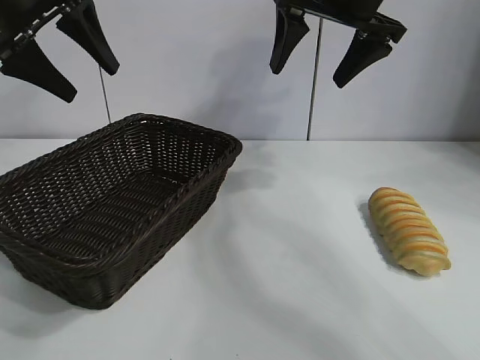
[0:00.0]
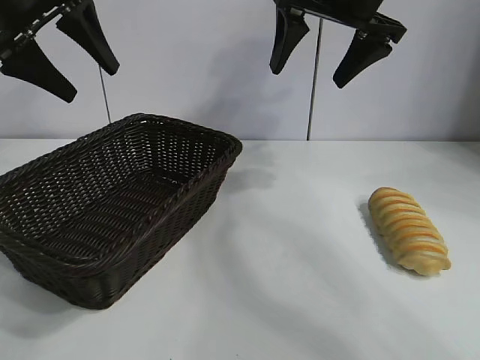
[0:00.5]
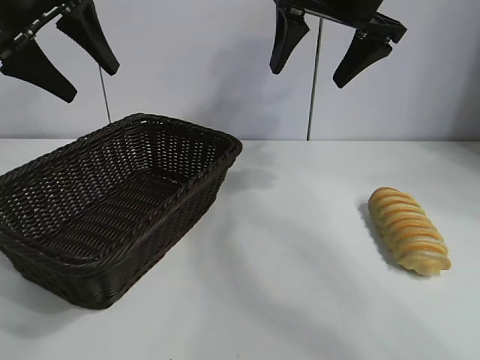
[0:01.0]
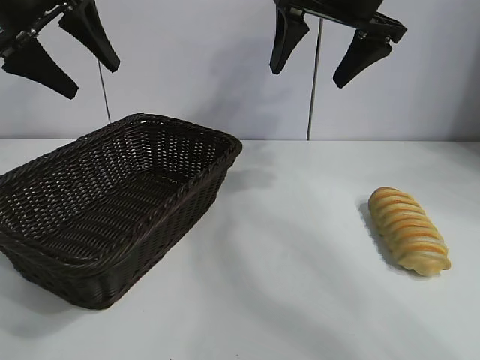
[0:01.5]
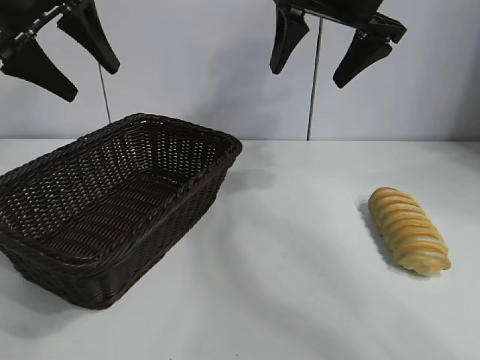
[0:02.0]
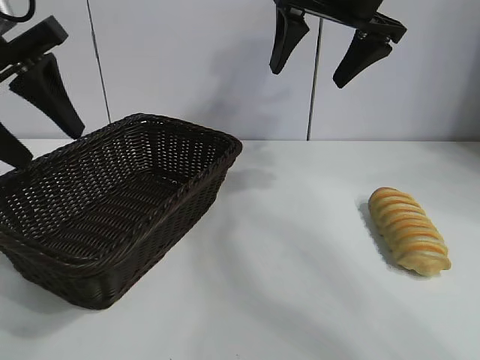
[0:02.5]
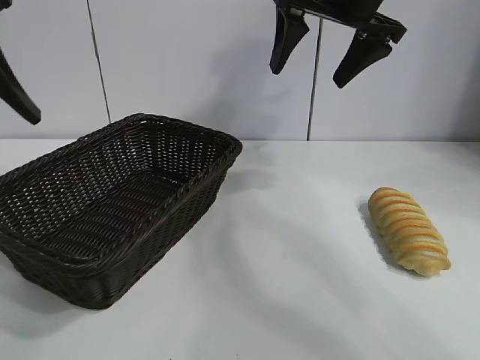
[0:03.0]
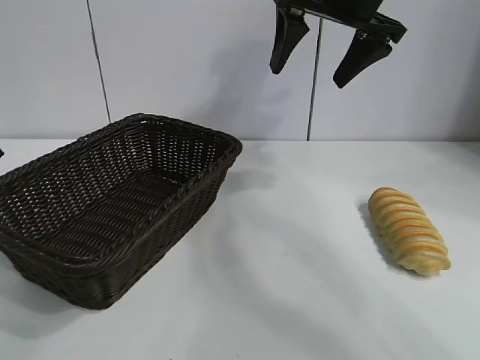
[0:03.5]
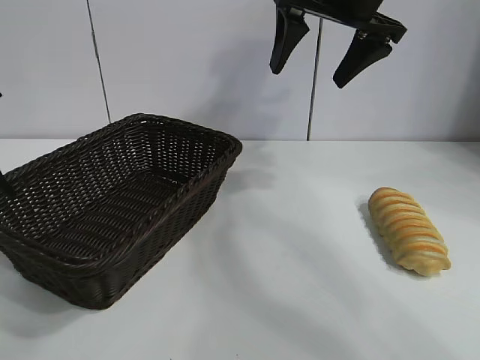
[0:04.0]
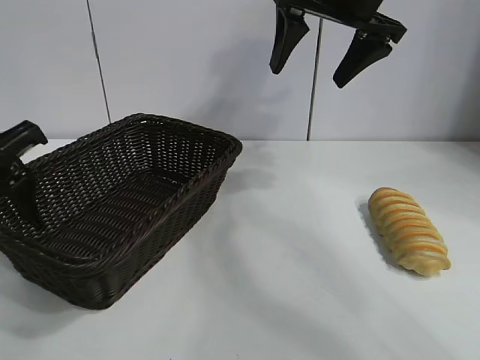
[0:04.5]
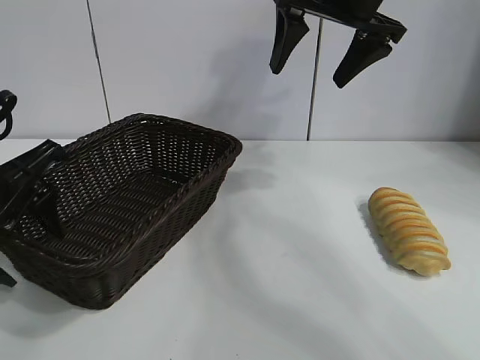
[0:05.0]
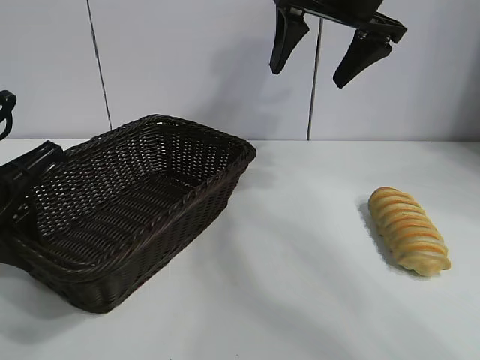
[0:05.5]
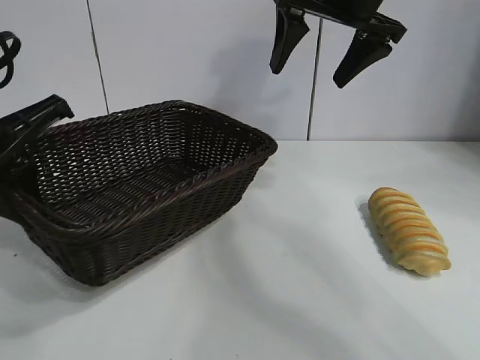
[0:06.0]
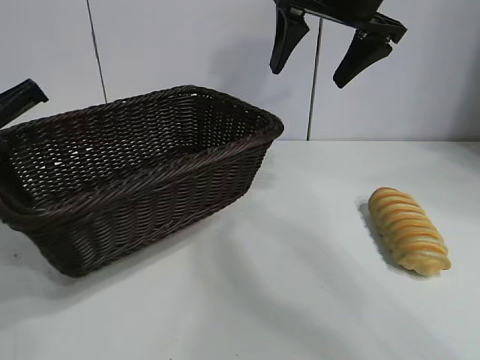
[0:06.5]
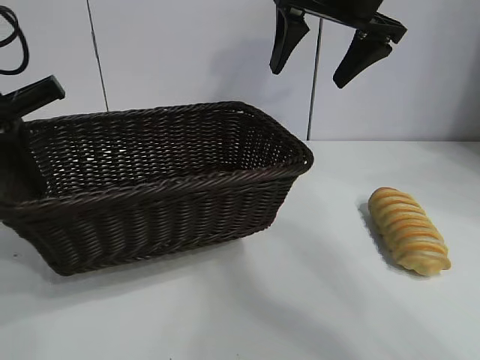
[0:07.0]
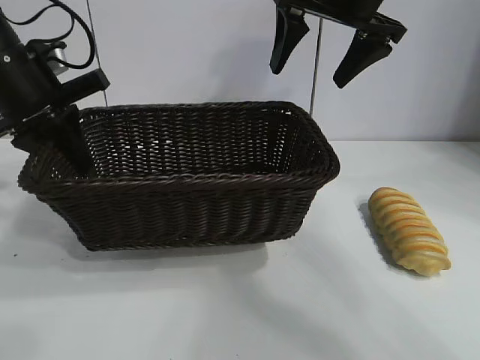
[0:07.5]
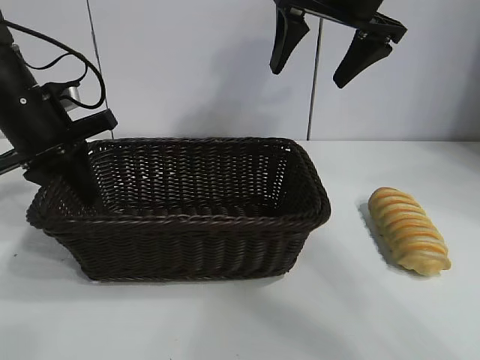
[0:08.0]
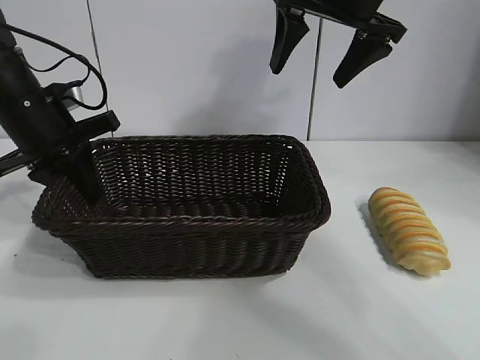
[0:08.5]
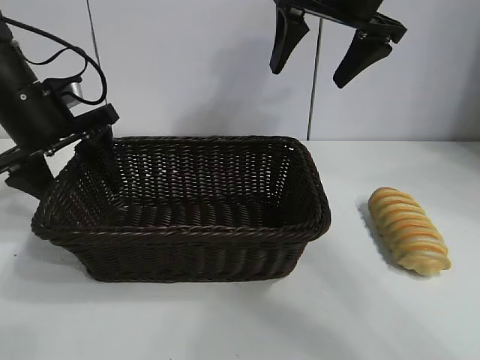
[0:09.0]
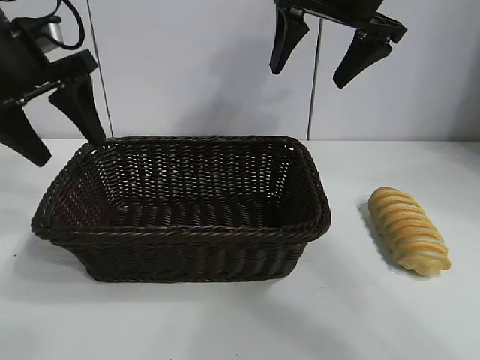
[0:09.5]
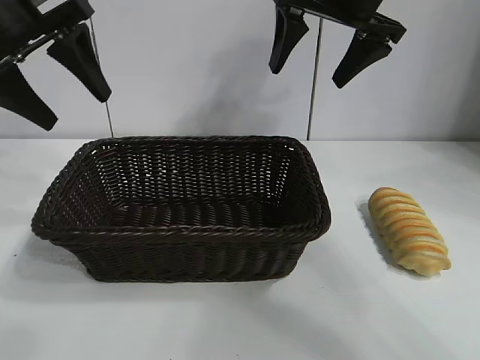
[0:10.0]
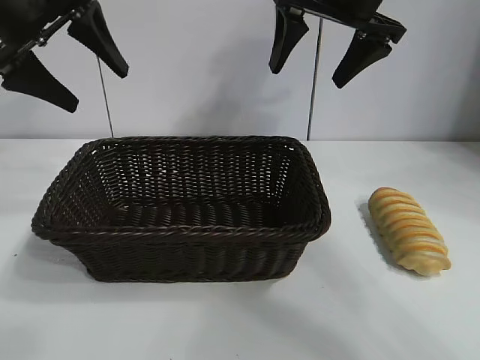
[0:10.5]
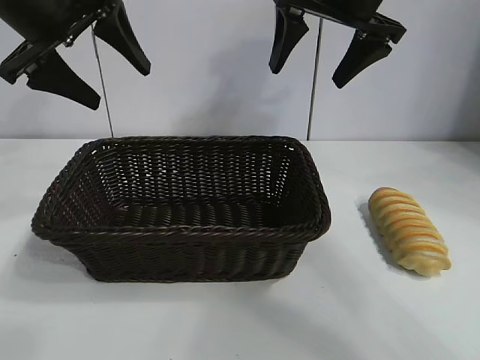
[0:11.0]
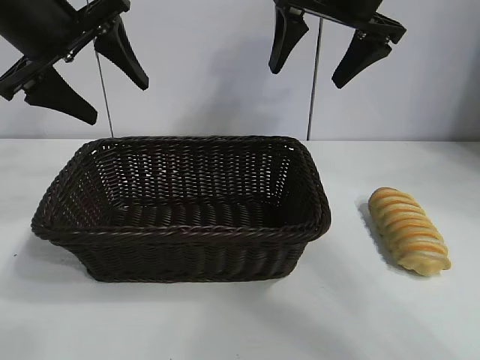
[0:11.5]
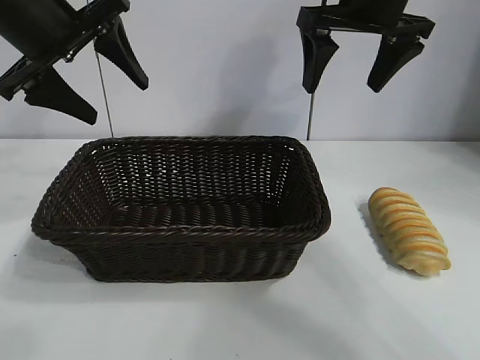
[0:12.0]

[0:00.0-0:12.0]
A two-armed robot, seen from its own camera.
Task of the whole recording: pick up the long bread and put it into the basket.
Step, 0:01.5 to 0:05.5: Grasp the basket with the left gripper.
Step, 0:06.0 to 0:08.5: Place the basket in the center of the table with the left gripper.

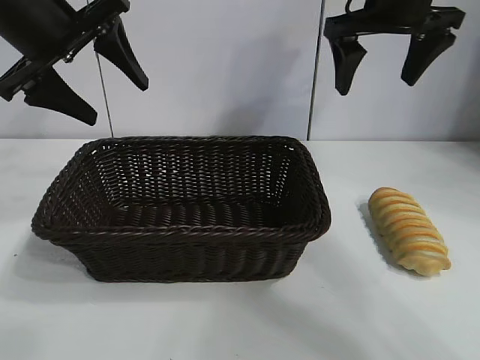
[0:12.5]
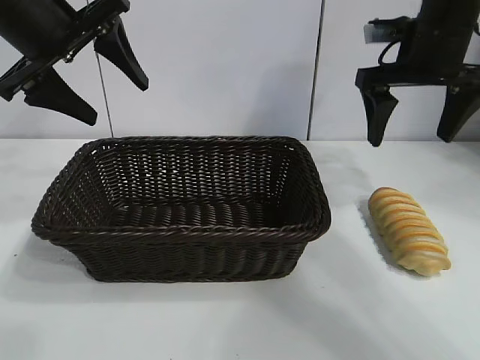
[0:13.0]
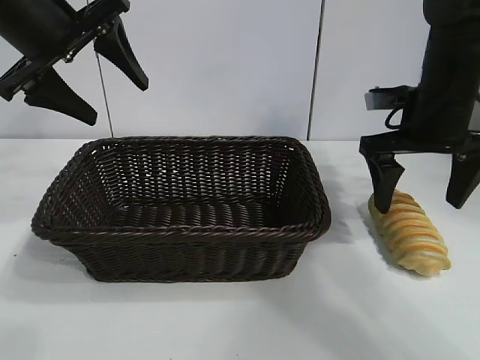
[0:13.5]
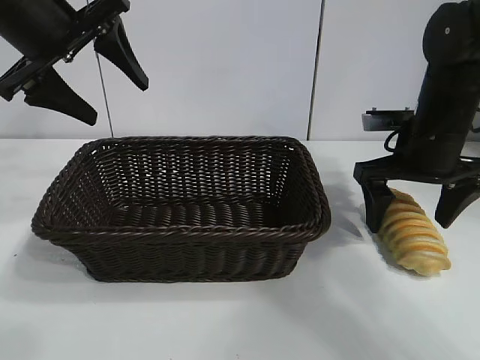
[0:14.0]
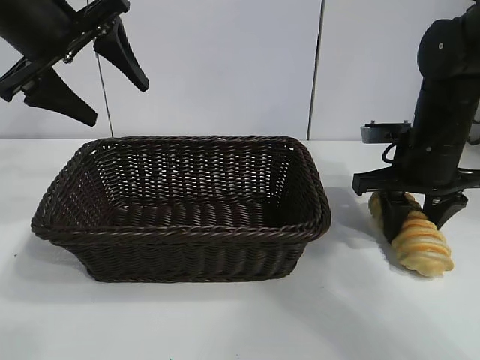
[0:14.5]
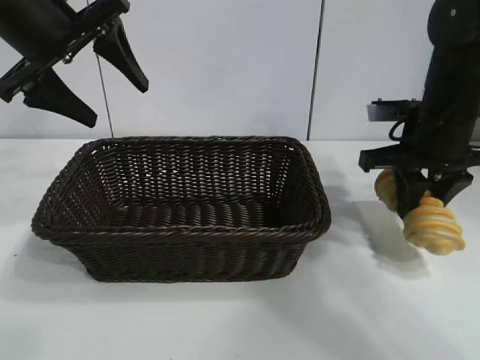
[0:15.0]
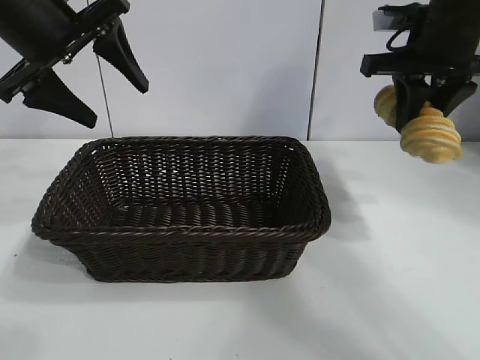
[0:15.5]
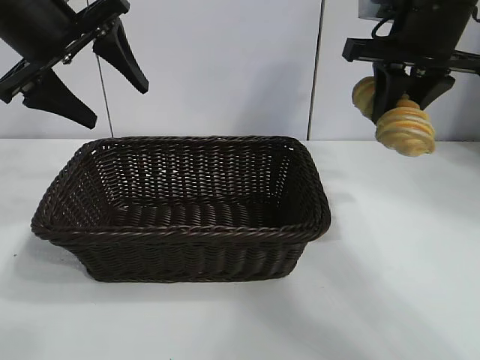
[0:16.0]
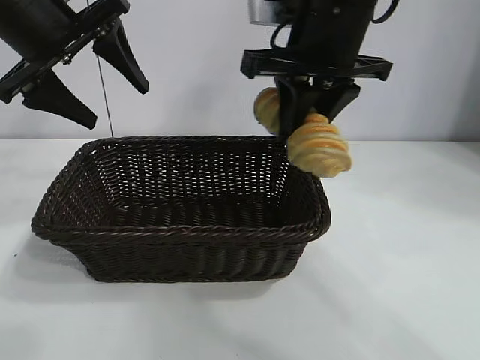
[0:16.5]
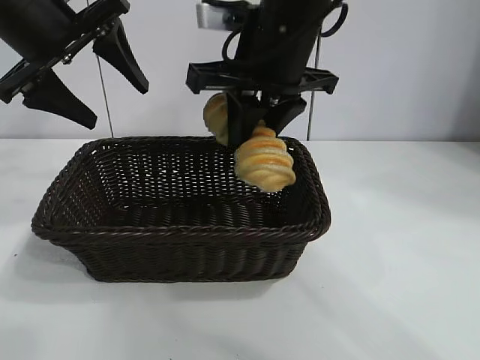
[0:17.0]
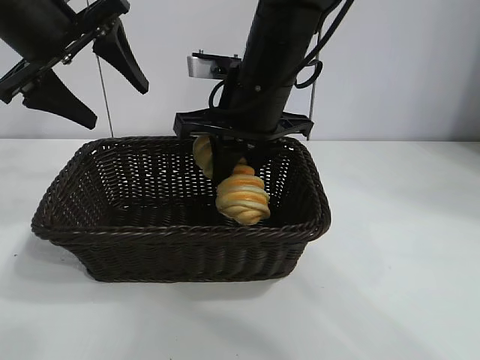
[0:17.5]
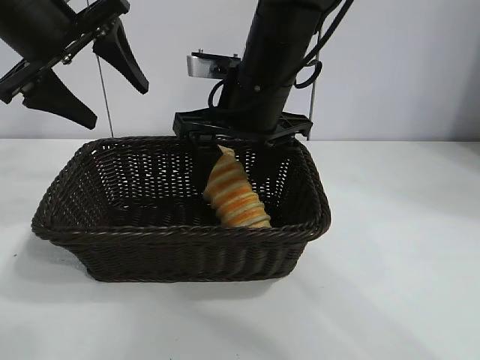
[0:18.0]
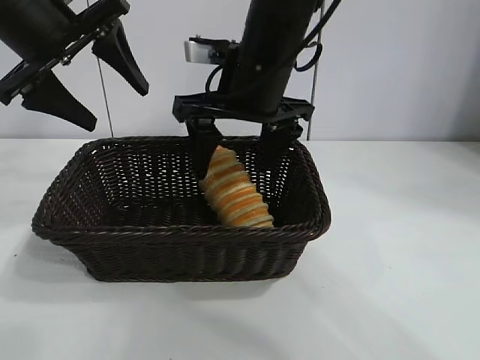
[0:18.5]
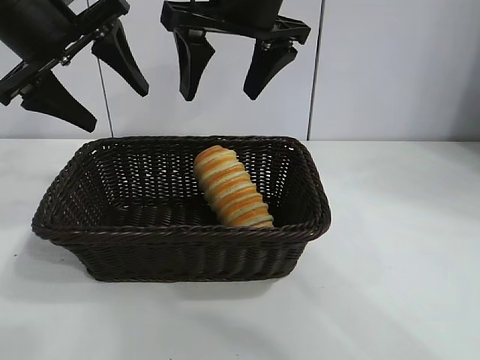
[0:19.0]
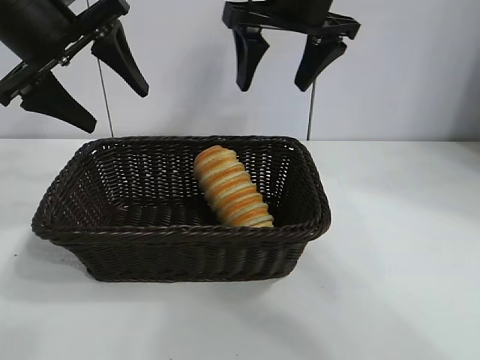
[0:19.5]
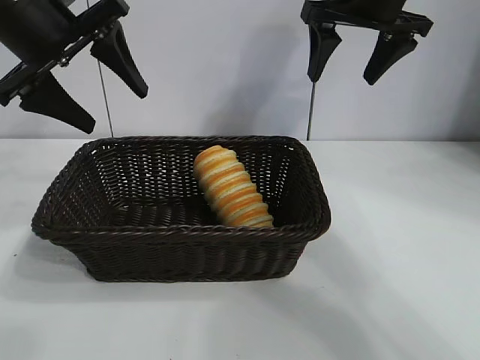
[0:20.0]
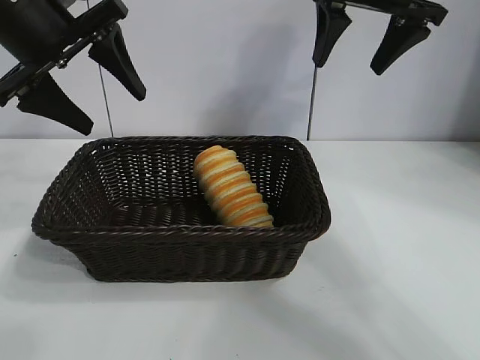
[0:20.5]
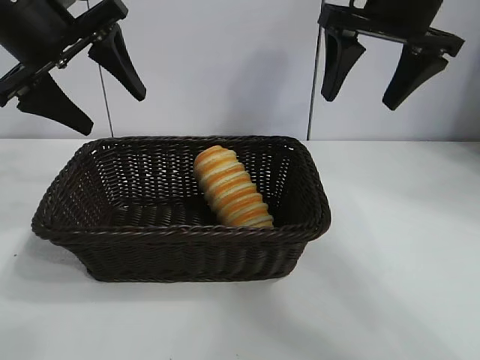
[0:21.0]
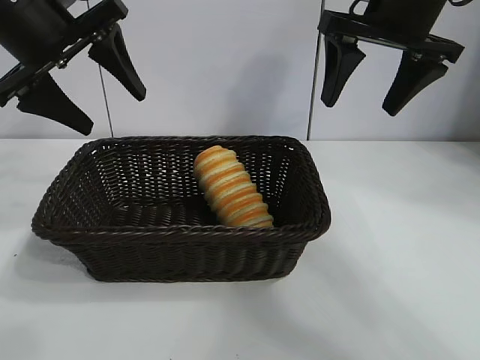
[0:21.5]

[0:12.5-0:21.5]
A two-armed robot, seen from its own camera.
Task of the whole recording: pick up the long bread and put it into the basket.
Step, 0:12.5 to 0:14.5: Grasp the long bread with right gripper.
Step, 0:15.0 to 0:18.5: Place the long bread in the basket with right gripper.
